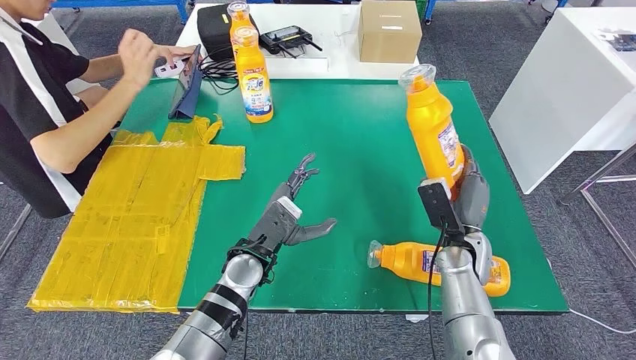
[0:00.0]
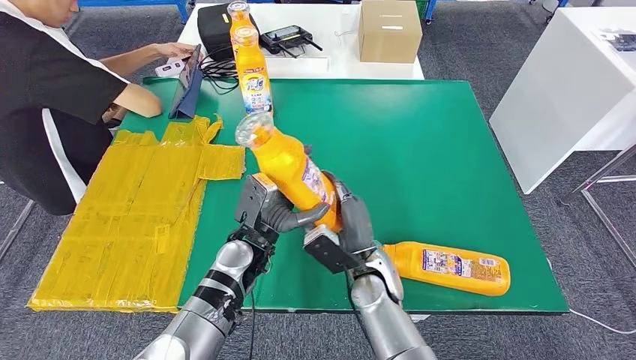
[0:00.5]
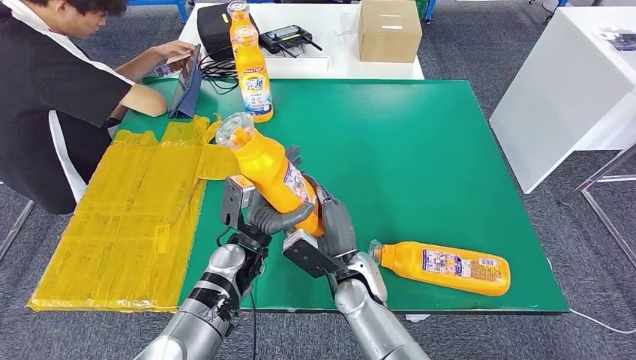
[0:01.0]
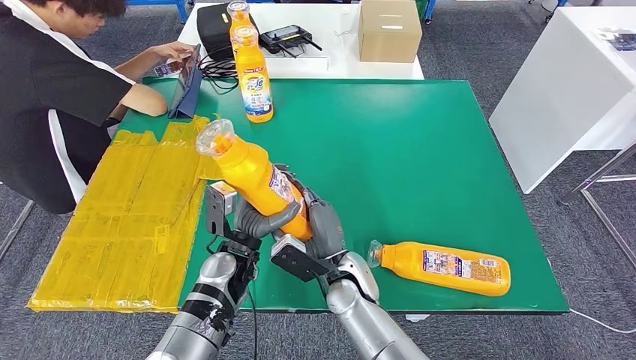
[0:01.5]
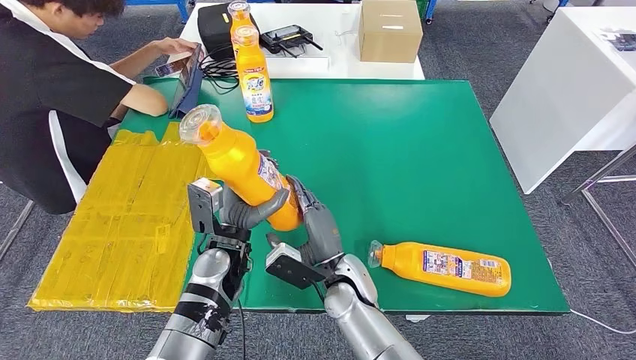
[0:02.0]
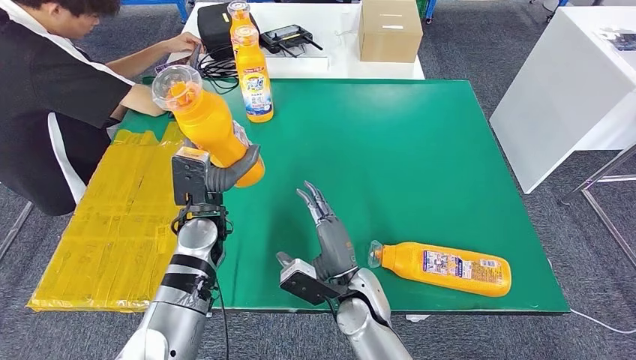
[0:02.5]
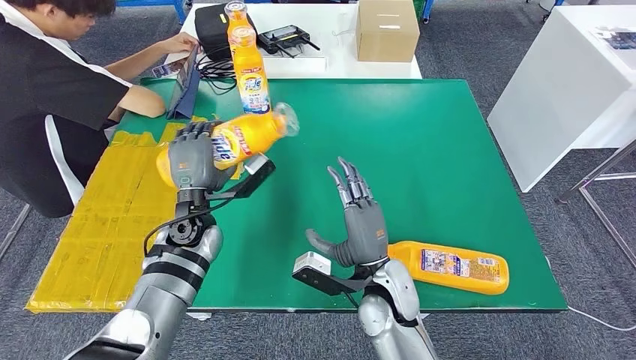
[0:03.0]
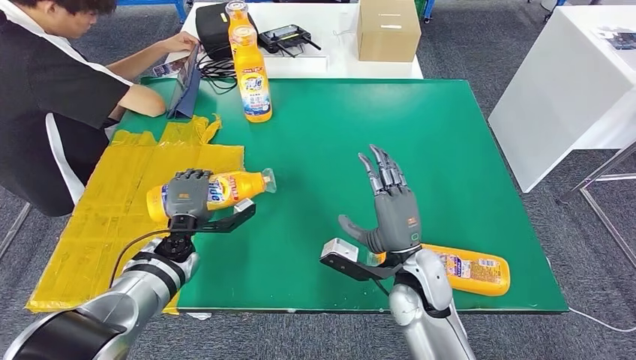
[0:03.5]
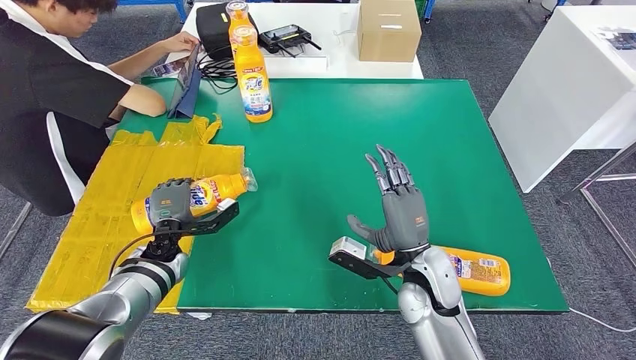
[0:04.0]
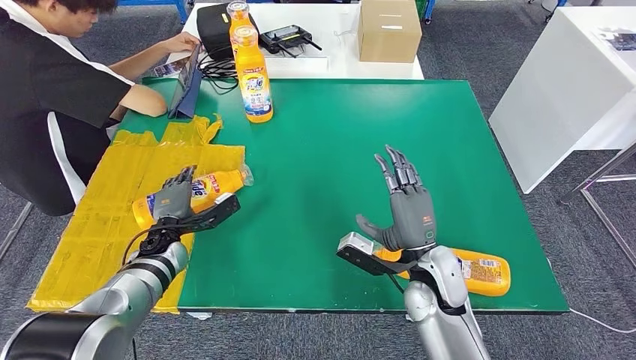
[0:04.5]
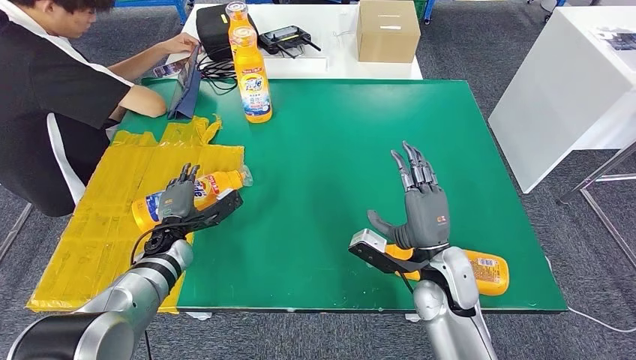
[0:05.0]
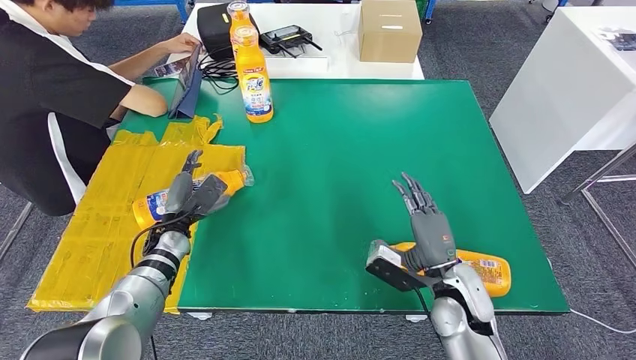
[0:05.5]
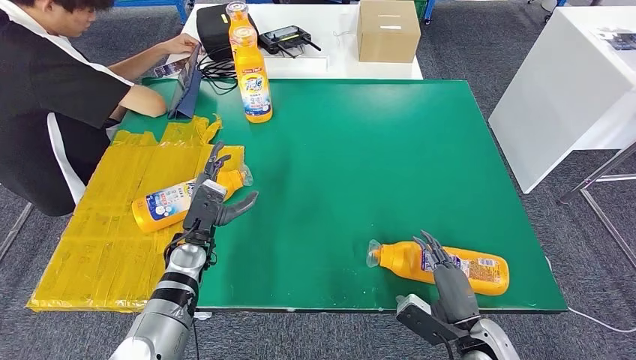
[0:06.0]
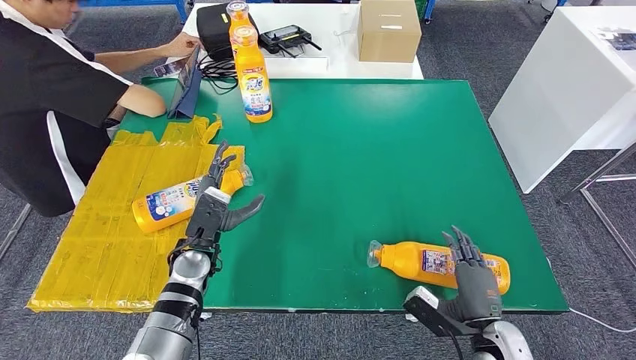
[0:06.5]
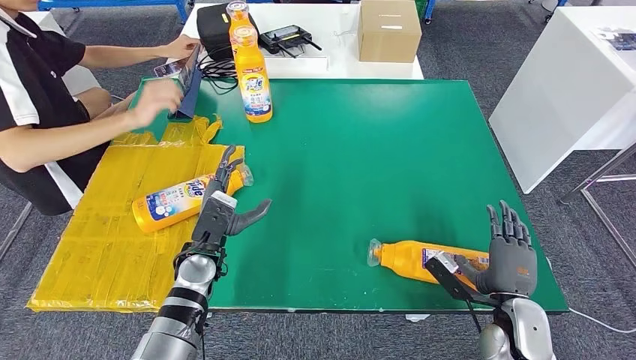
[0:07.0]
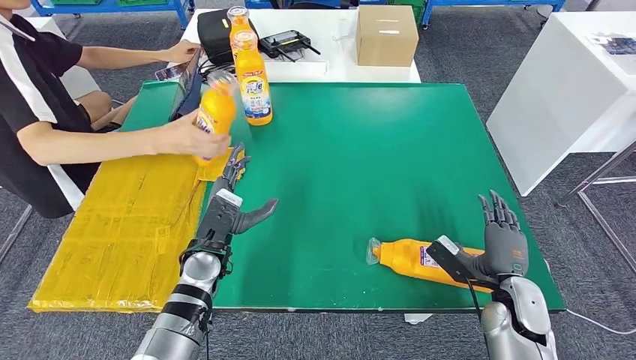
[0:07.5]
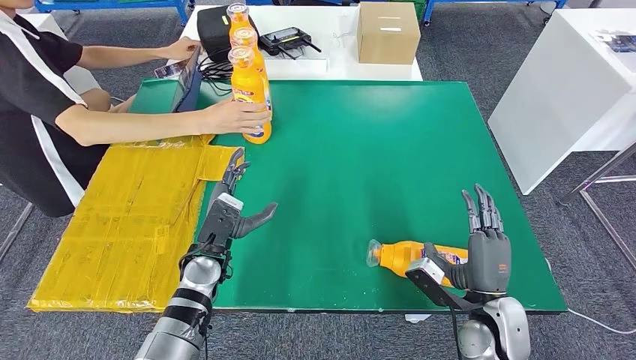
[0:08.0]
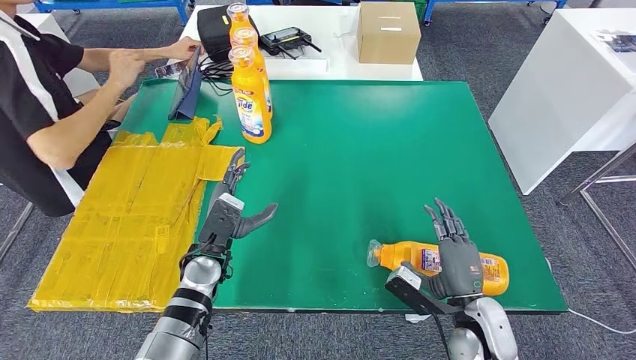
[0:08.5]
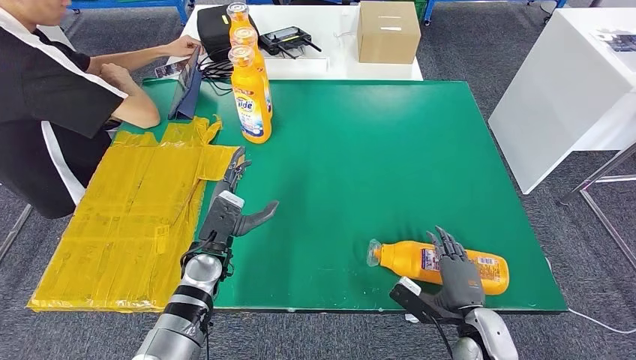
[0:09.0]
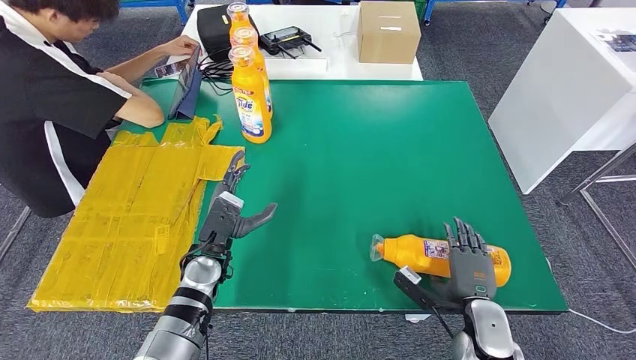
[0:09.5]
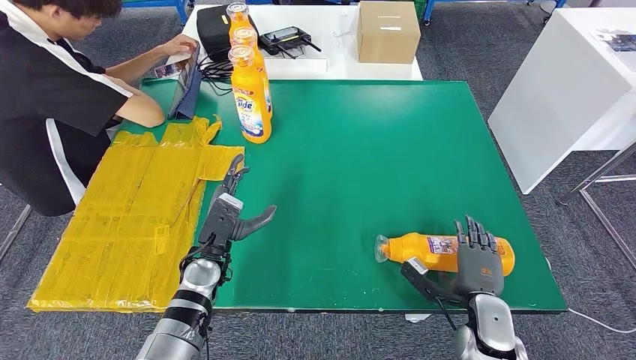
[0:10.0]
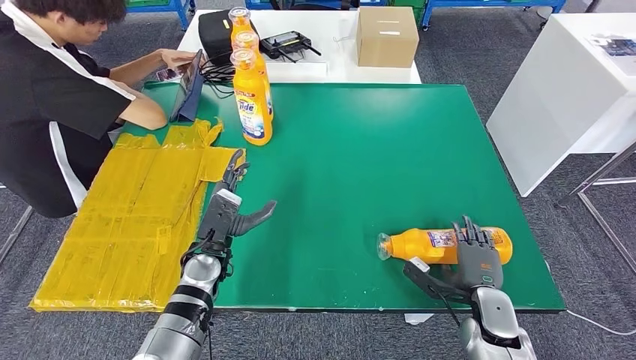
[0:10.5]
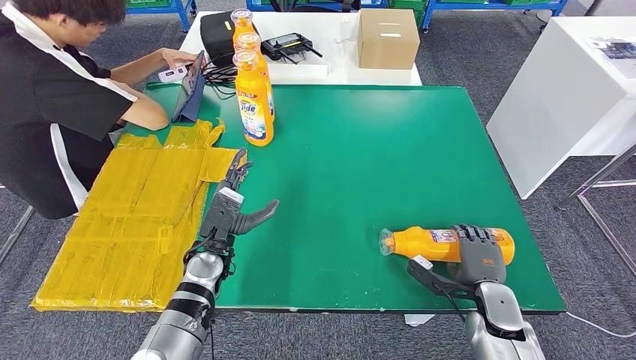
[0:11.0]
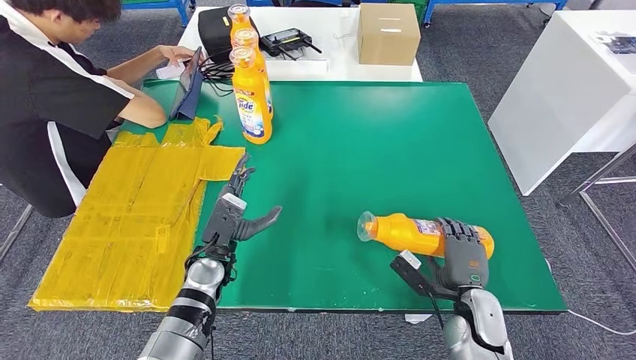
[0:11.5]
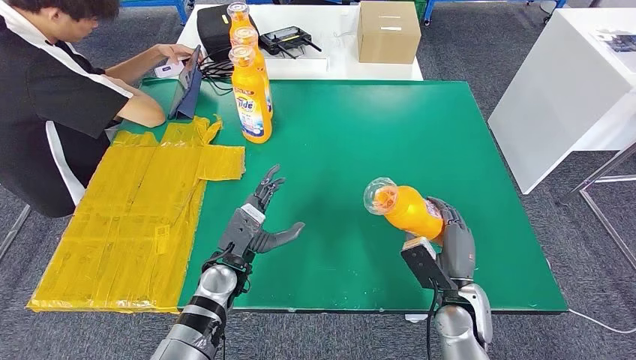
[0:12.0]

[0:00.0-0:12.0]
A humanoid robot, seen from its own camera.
Step, 0:02.5 to 0:06.0: Flip the bottle to face forward.
0:04.0 to 0:06.0: The right hand heads to the right, downward and backward, covering about 15 cm, while the left hand travels to the right by about 5 cm.
0:08.0 to 0:10.0: The right hand goes approximately 5 cm downward.
0:10.0 to 0:12.0: The right hand shifts some 5 cm to the left.

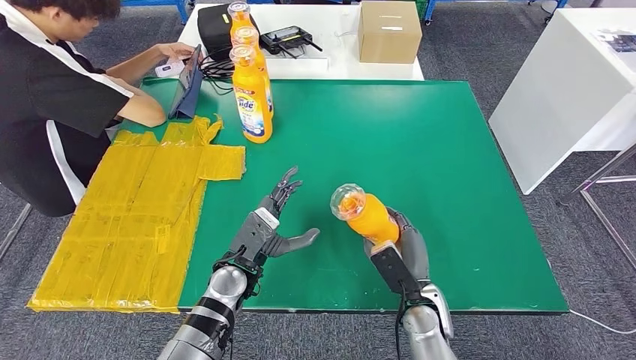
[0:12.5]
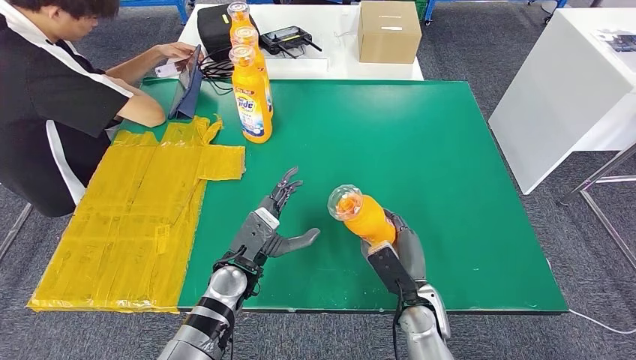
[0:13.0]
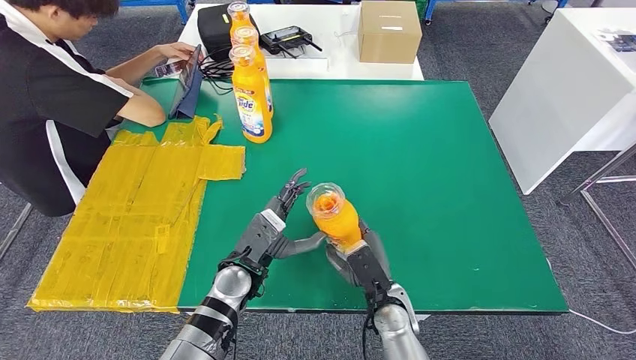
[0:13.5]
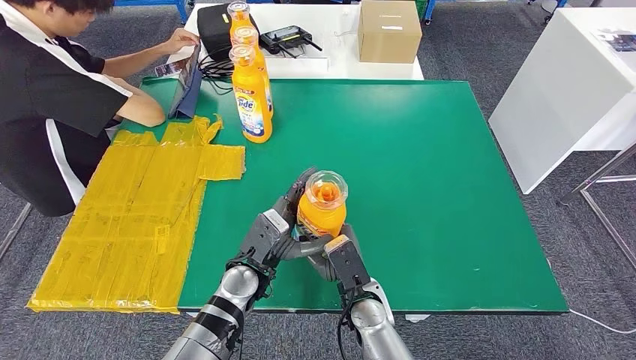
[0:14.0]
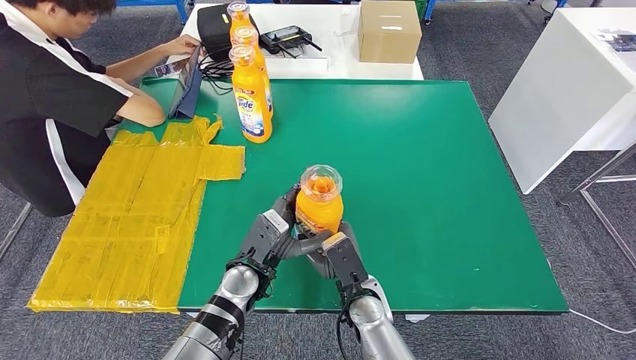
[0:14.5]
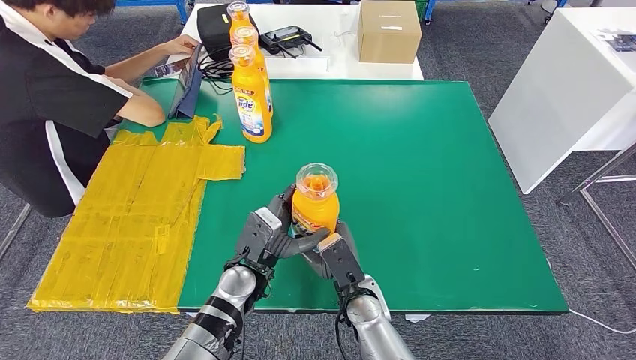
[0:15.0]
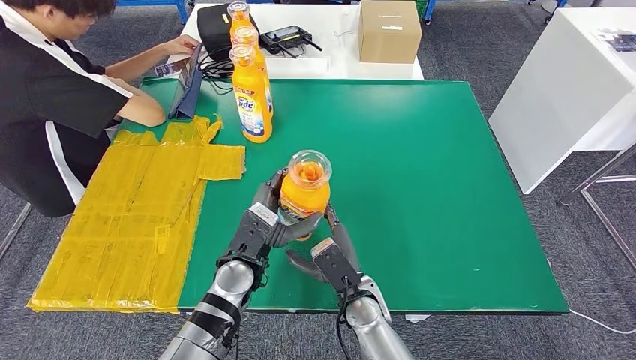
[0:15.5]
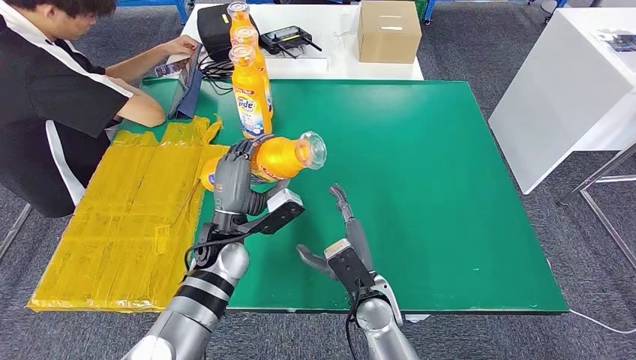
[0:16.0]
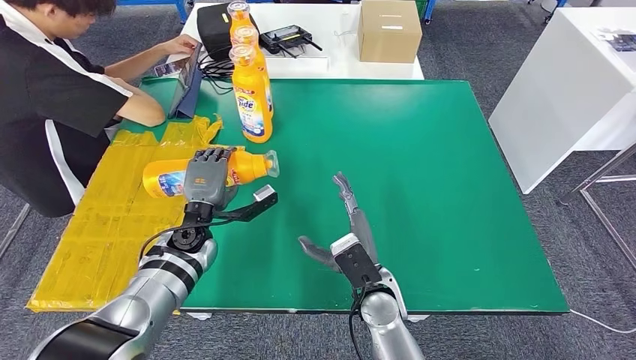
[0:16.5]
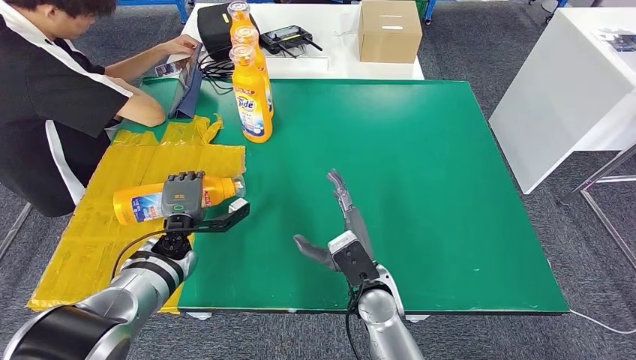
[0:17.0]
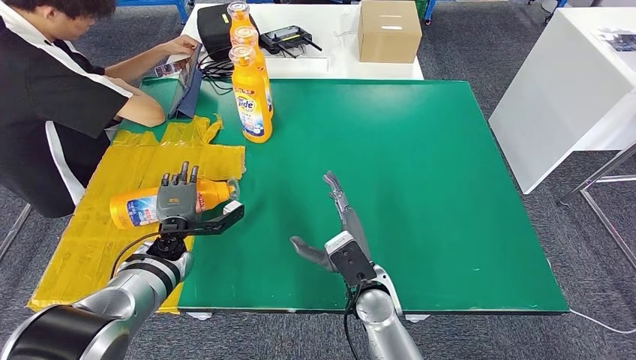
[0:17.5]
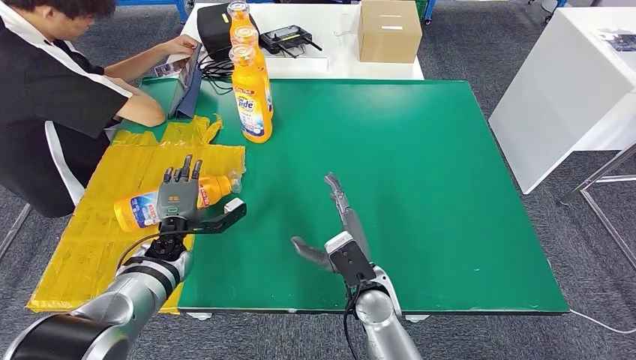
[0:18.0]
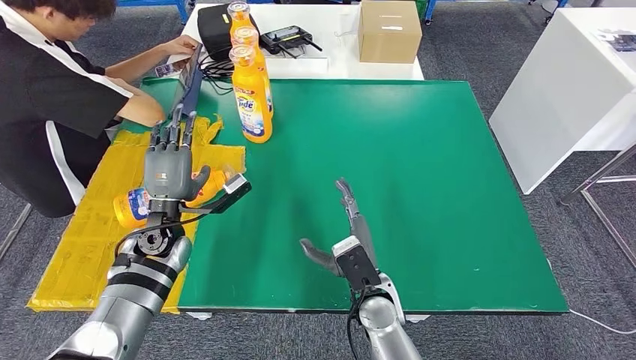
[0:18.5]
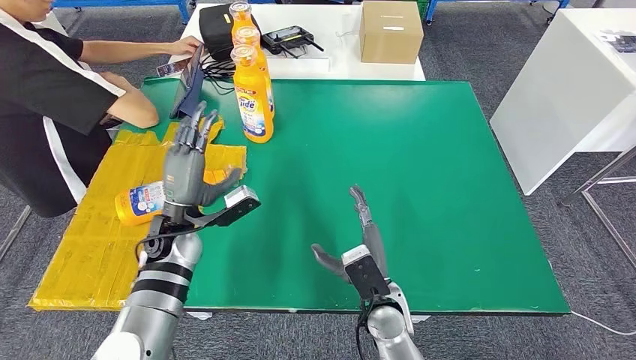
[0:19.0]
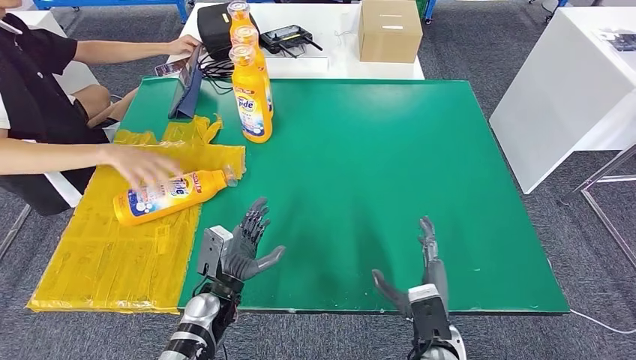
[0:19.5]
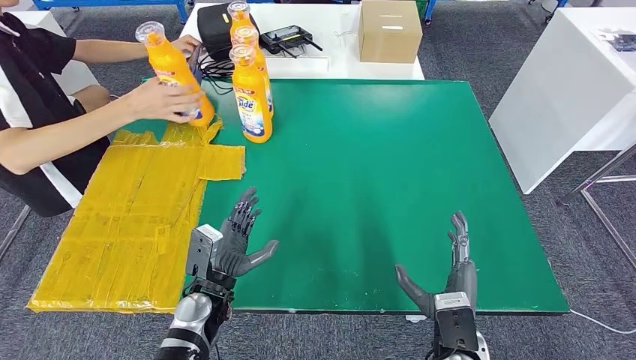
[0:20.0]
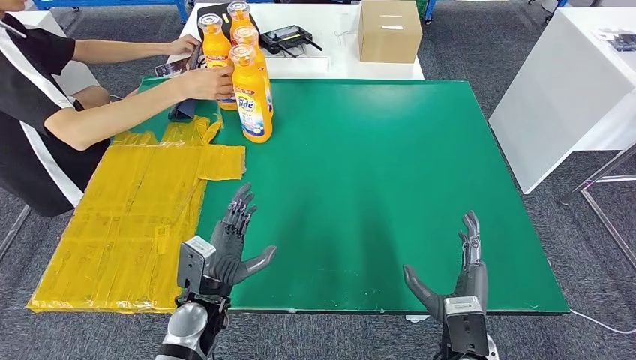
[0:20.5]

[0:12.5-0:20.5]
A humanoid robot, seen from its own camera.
Step, 0:12.5 to 0:14.5: Pick up the bottle from the table.
Step, 0:15.0 to 0:20.5: Flip the bottle to face forward.
0:12.5 to 0:14.5: The right hand travels to the left by approximately 10 cm.
0:14.5 to 0:16.5: The left hand travels to the left and forward by about 15 cm.
0:16.5 to 0:18.5: The left hand shifts by some 5 cm.
